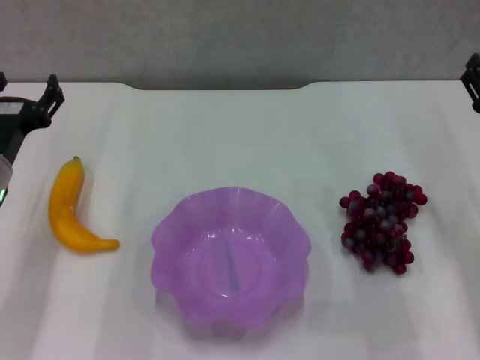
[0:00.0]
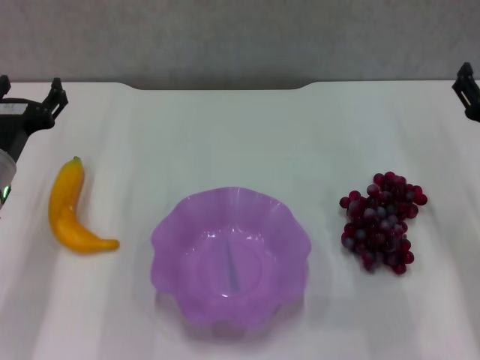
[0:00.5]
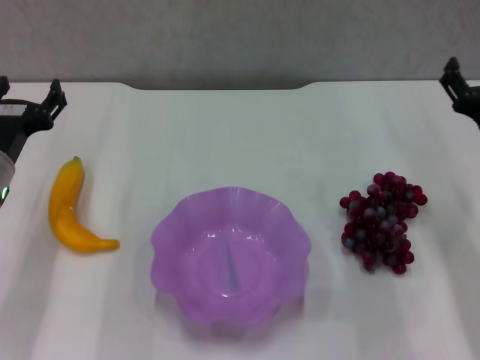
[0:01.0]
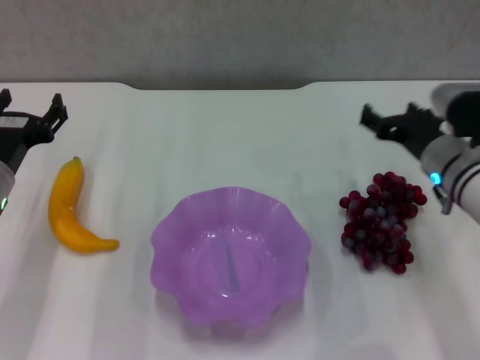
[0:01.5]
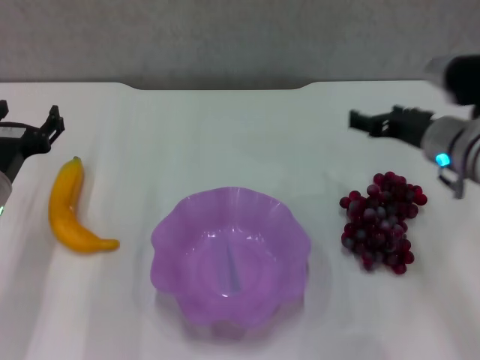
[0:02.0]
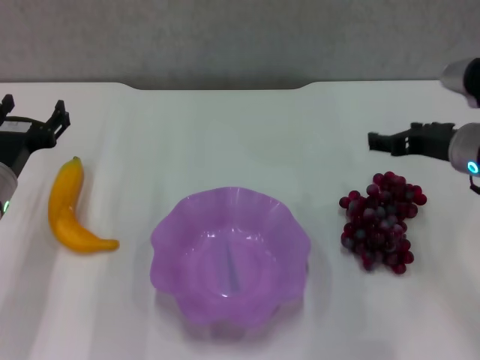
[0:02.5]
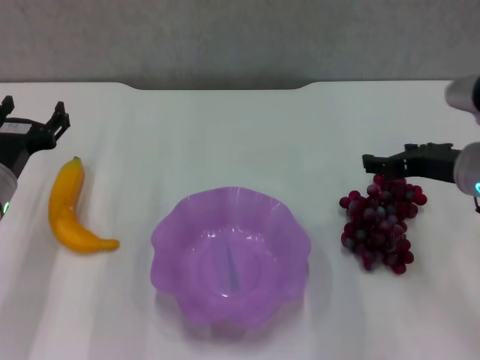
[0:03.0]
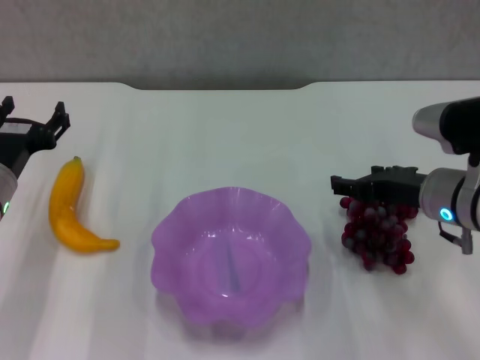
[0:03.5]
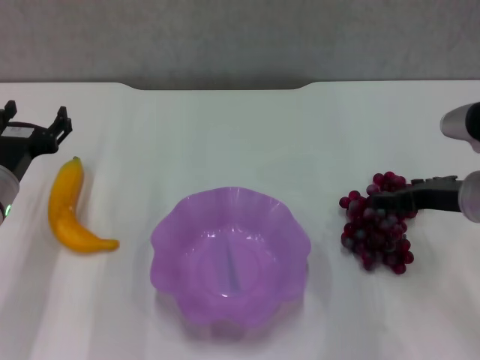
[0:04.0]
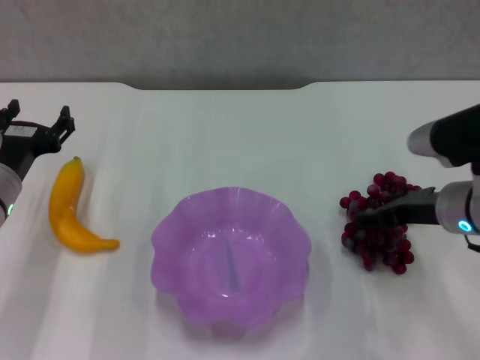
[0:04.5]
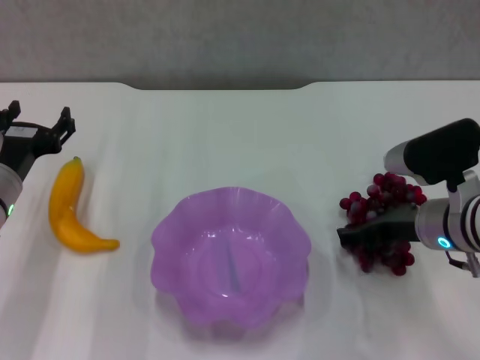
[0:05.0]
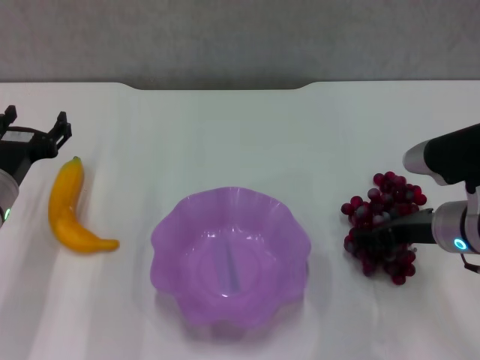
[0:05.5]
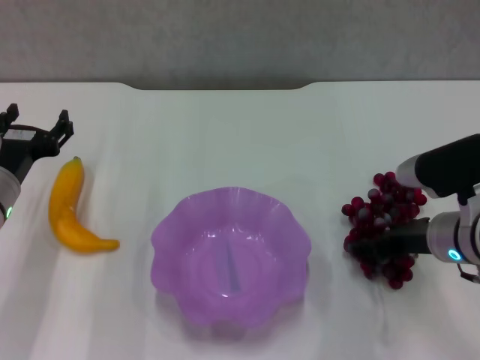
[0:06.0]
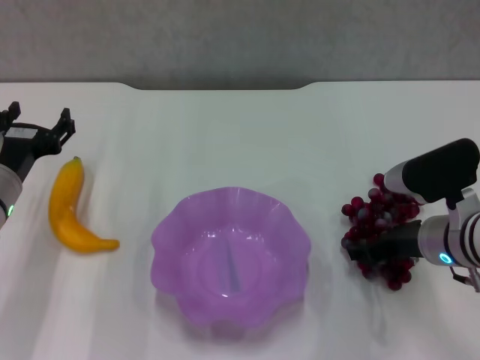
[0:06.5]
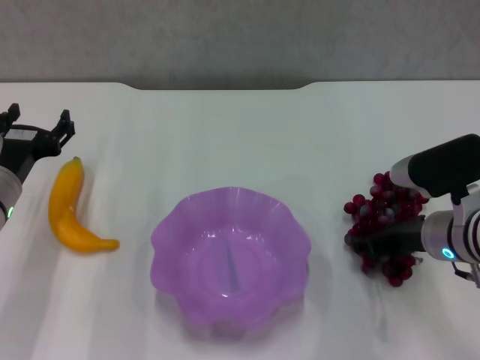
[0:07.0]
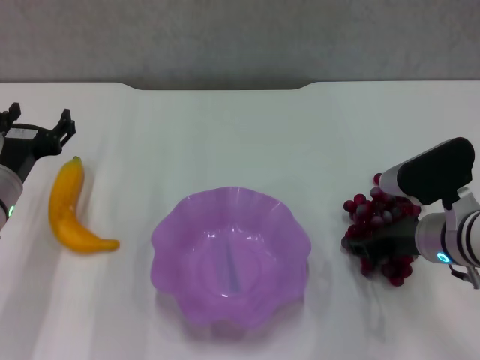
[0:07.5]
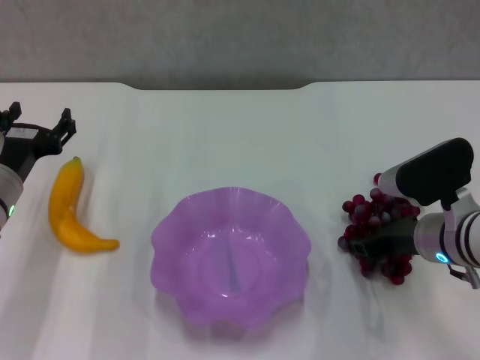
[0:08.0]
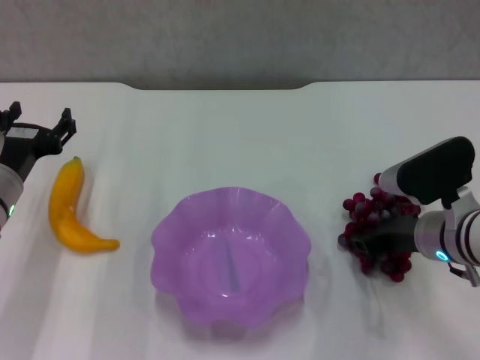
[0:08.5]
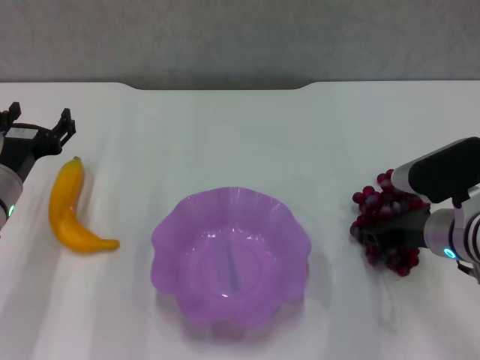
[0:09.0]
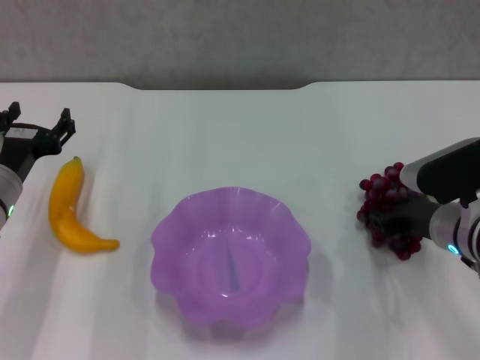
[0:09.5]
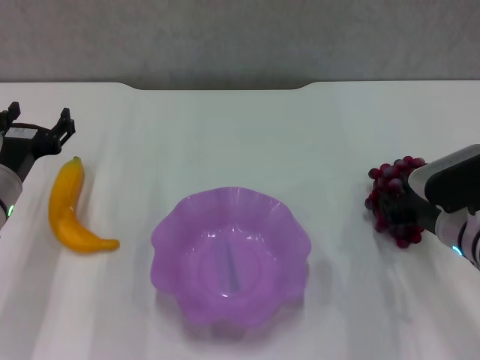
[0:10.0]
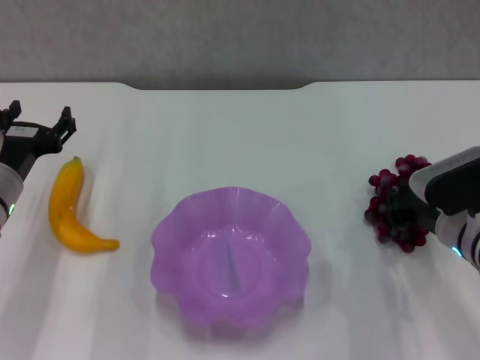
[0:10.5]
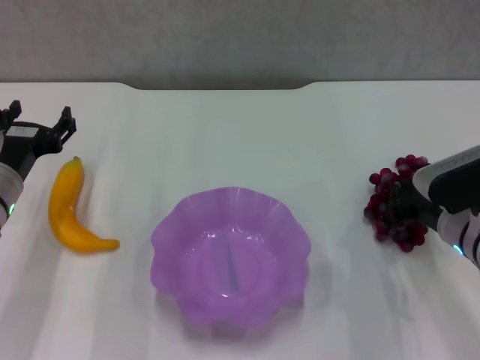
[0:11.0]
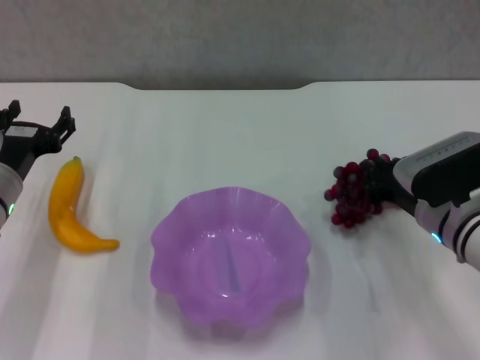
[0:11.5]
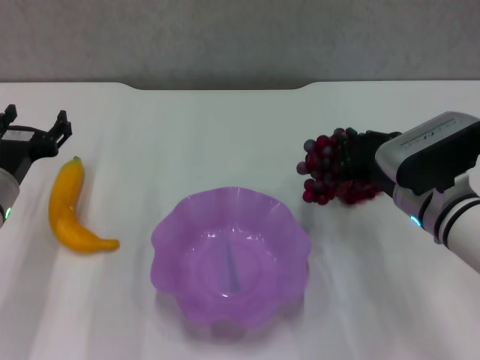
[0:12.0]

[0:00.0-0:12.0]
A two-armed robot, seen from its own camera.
Step, 0:00.0 to 0:11.0: Grasp the grape with right gripper.
0:00.0 to 0:02.0: The right gripper moves to the left and forward, about 10 cm.
0:02.0 to 0:04.0: The right gripper travels backward by roughly 5 cm.
0:04.0 to 0:06.0: The right gripper moves approximately 5 cm.
0:06.0 to 0:08.0: There are only small adjustments of the grippers.
0:10.0 to 0:12.0: The right gripper goes about 5 cm to the left, and closes its fingers.

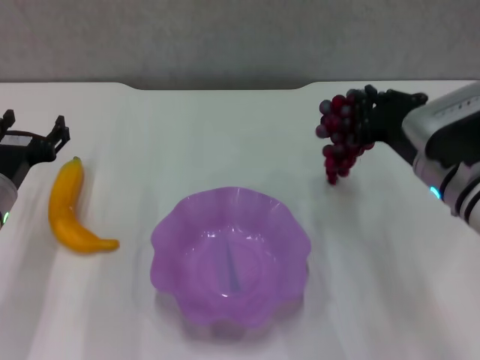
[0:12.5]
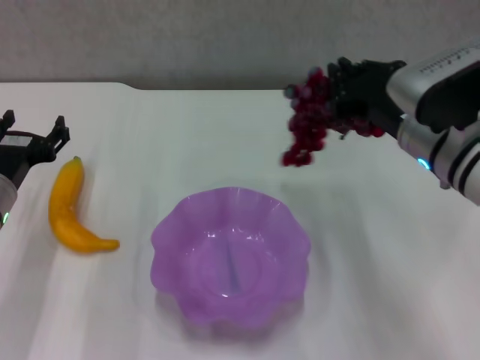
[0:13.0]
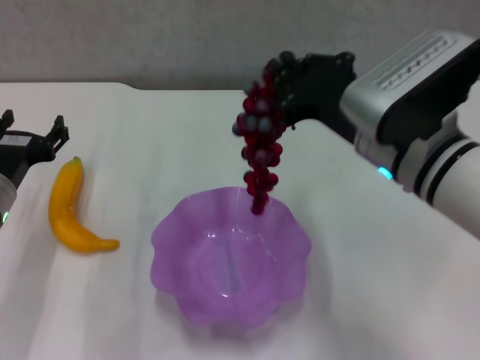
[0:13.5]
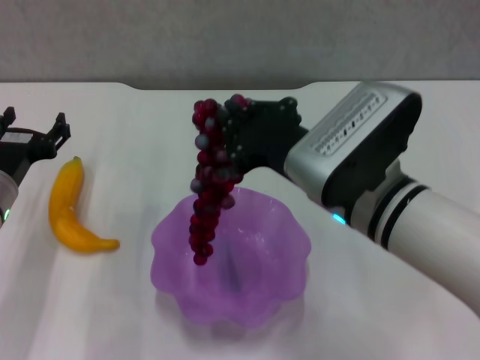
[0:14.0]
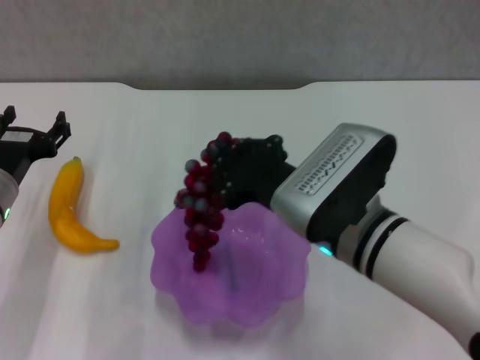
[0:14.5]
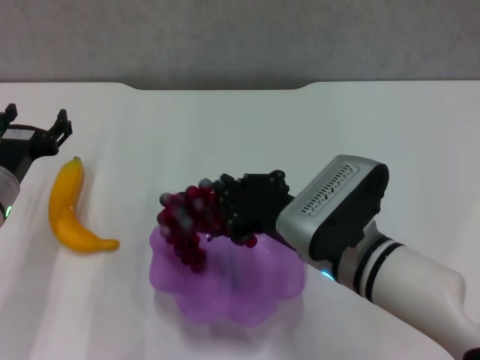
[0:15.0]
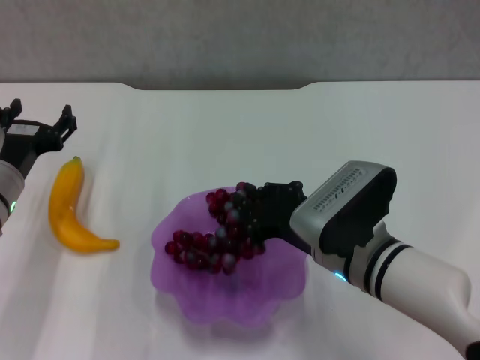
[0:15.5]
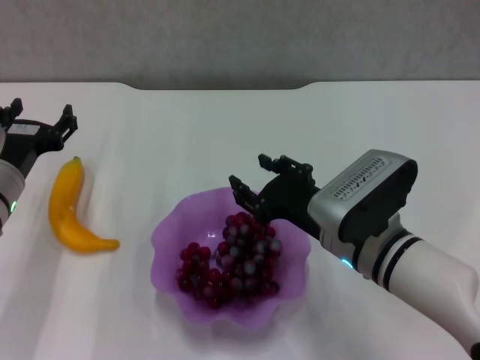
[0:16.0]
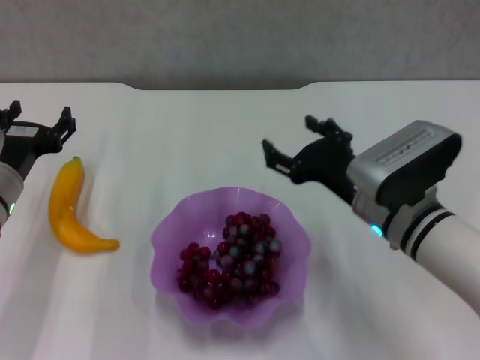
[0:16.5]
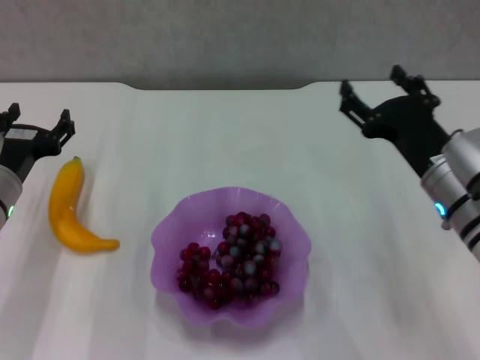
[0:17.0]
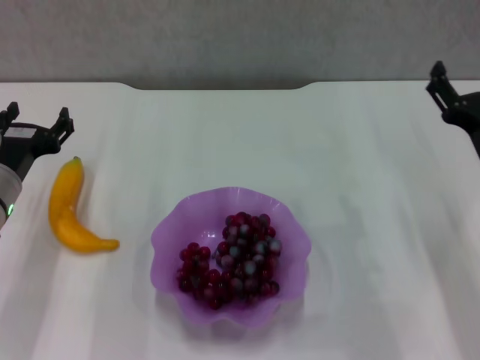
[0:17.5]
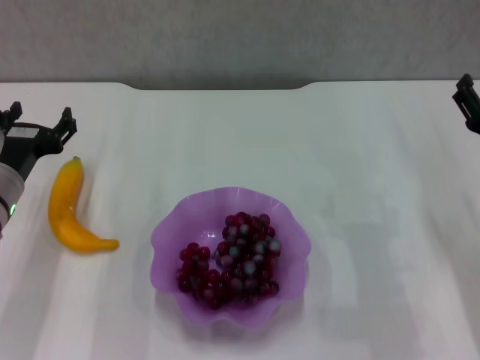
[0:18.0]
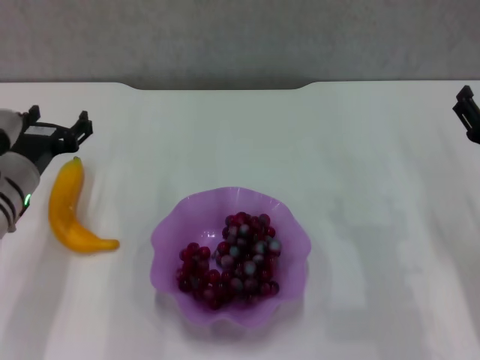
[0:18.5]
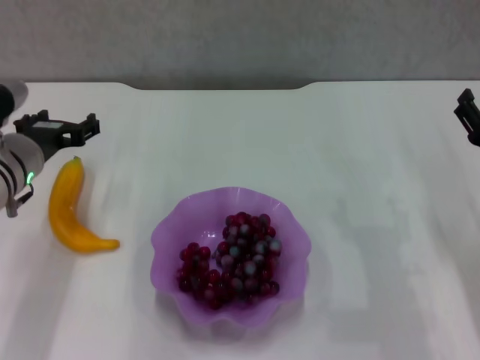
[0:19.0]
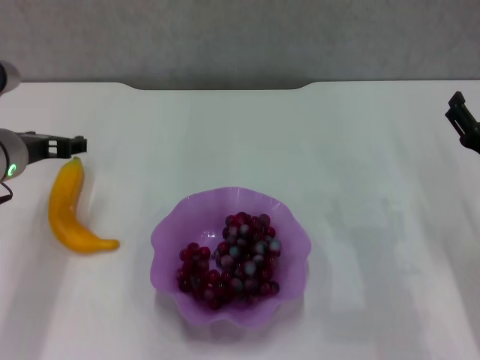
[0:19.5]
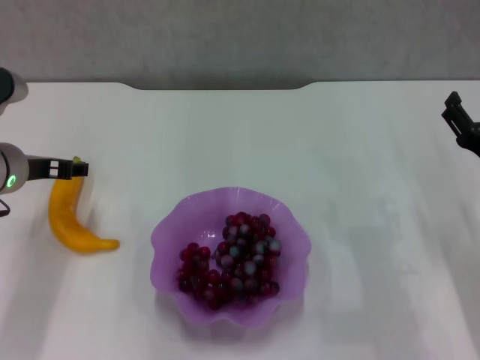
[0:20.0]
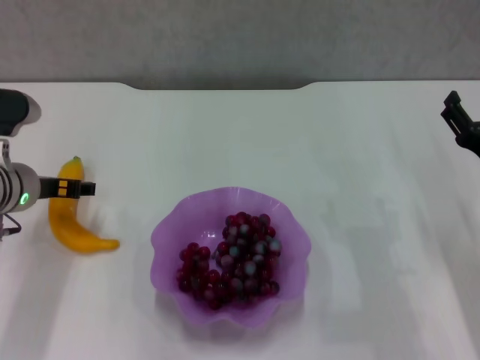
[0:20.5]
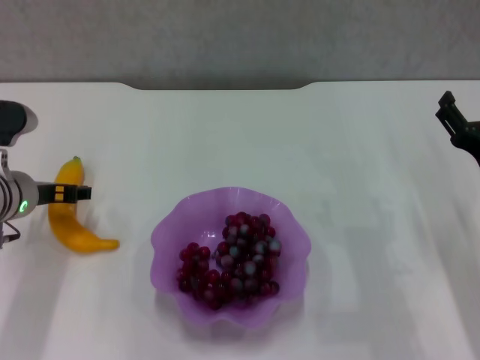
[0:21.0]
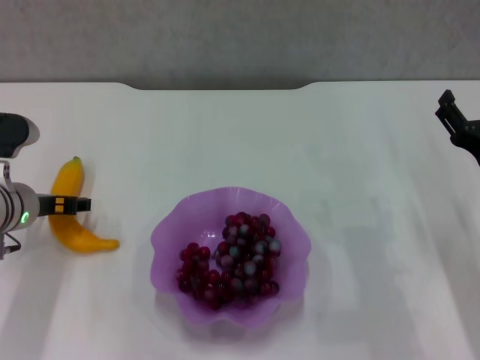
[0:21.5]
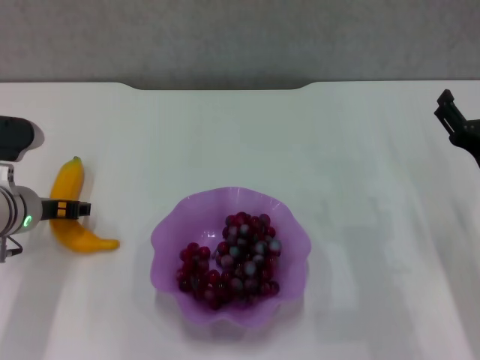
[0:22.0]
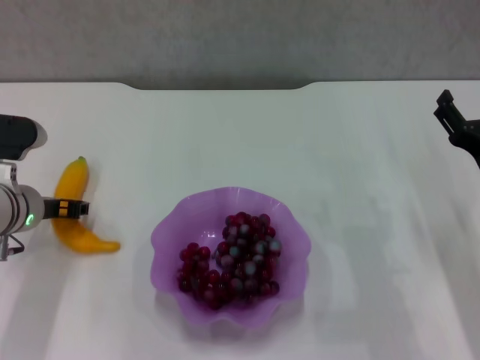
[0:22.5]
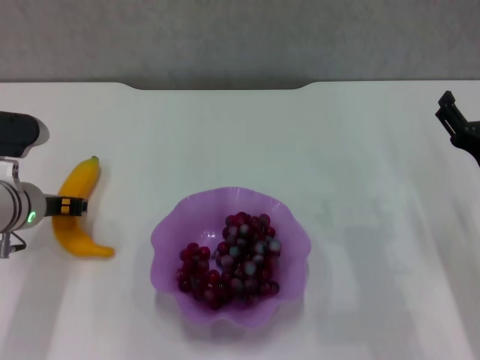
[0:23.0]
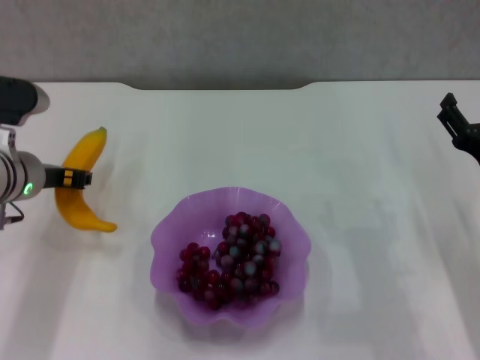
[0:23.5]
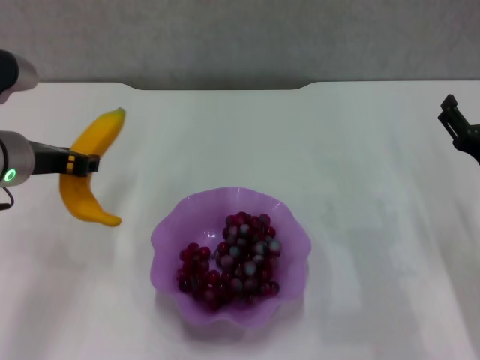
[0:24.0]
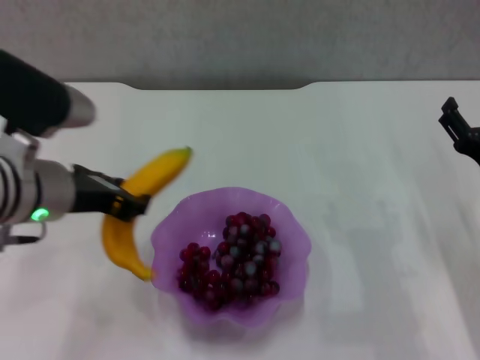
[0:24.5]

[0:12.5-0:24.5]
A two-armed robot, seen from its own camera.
Step, 0:12.5 to 0:15.5: Place the grape in the purple plate with right gripper.
Step, 0:16.0 to 0:22.5: Grasp the banana with left gripper.
0:12.5 to 0:14.5: The right gripper goes about 10 cm to the left and backward.
0:14.5 to 0:16.5: The right gripper goes some 5 cm to the right, and opens its fingers.
0:16.5 to 0:18.5: The right gripper shifts about 15 cm to the right.
0:20.5 to 0:22.5: The left gripper closes.
0:22.5 to 0:24.5: The left gripper shifts roughly 15 cm upward, backward and to the right, and closes its fingers.

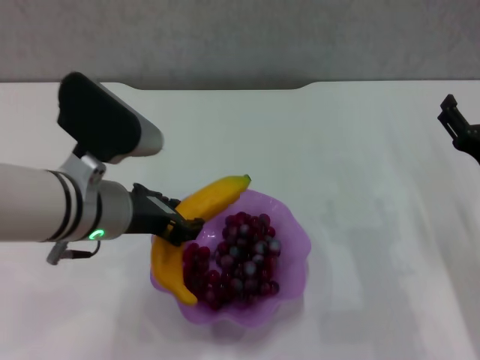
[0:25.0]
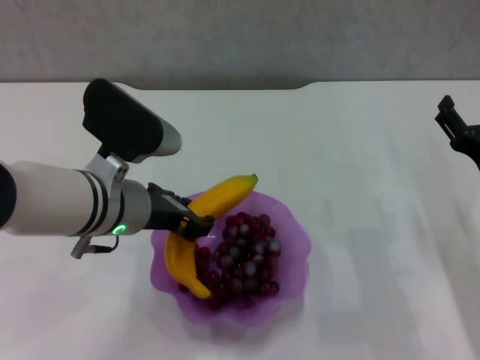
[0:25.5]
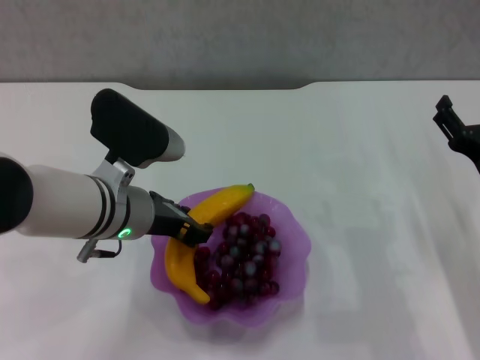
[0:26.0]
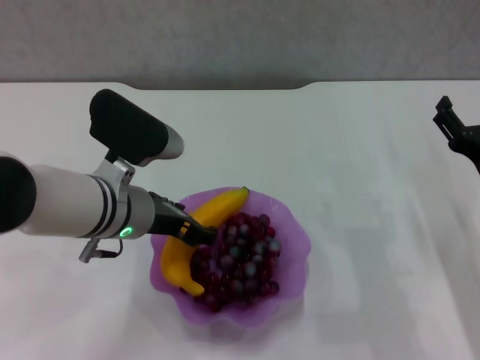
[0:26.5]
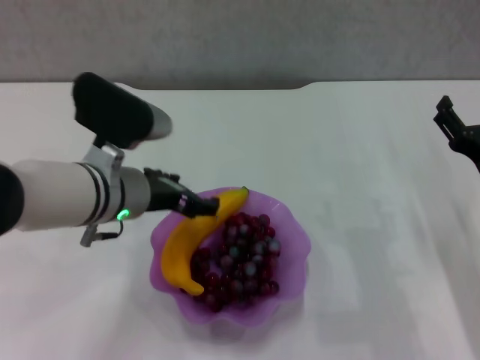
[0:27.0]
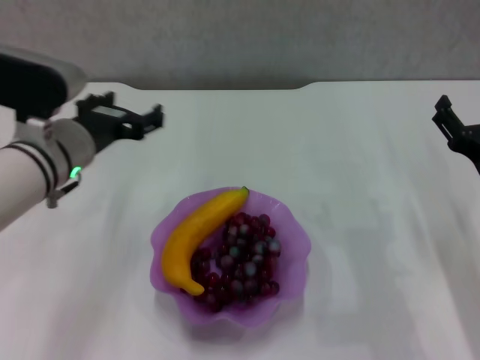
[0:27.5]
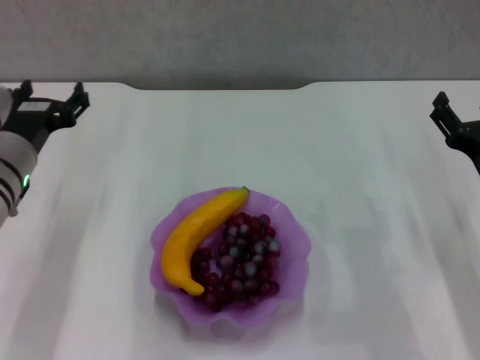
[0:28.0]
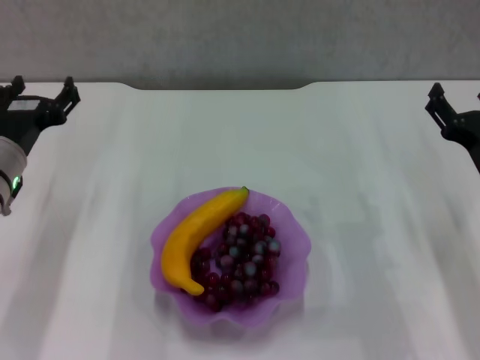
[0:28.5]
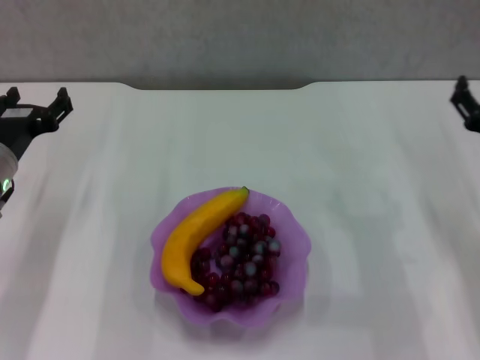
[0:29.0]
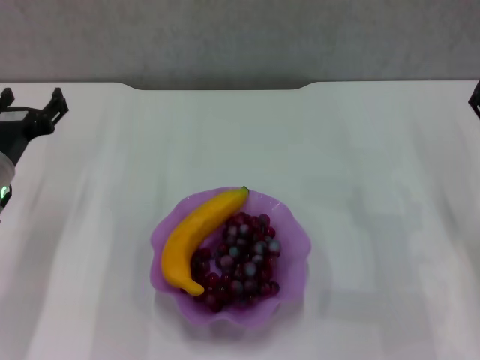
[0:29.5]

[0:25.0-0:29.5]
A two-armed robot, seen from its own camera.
0:25.0 to 0:27.0: The left gripper opens.
0:27.0 to 0:29.5: The left gripper heads to the left, covering about 15 cm.
